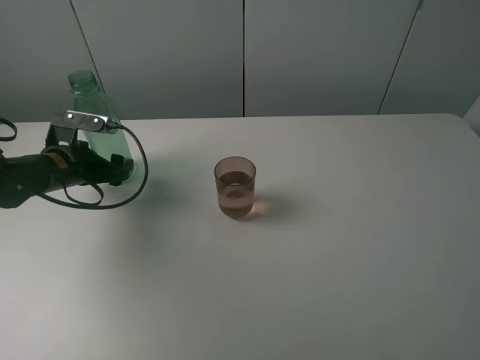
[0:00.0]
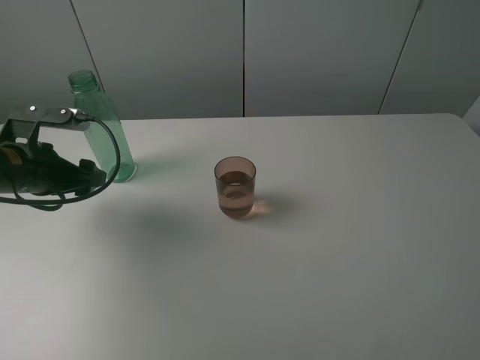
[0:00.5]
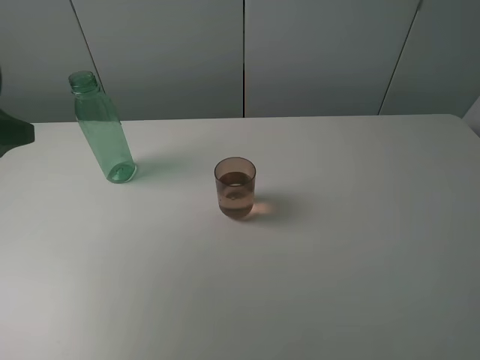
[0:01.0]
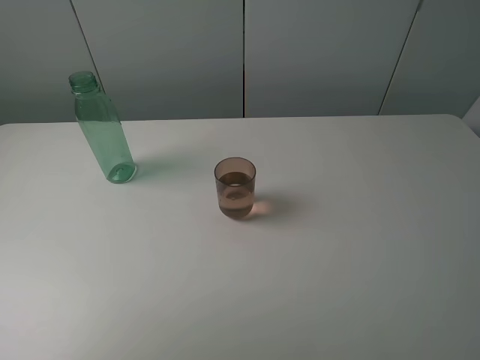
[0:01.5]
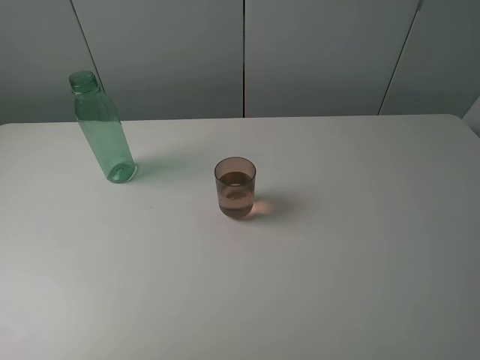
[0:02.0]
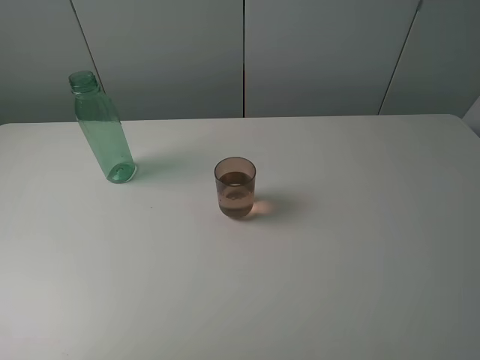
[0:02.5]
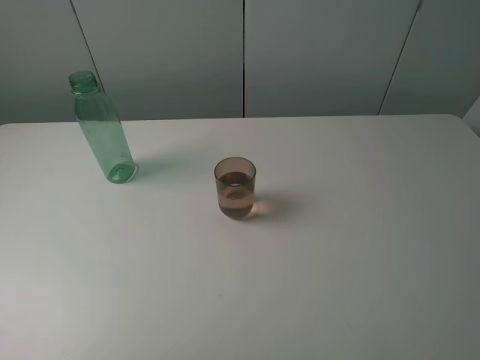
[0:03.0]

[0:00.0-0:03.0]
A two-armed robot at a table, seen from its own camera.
Task of the whole recording: pick up the bottle filled with water and pour it into the pink cup.
0:00.0 to 0:01.5: The left gripper shifts about 35 cm backward and upward.
